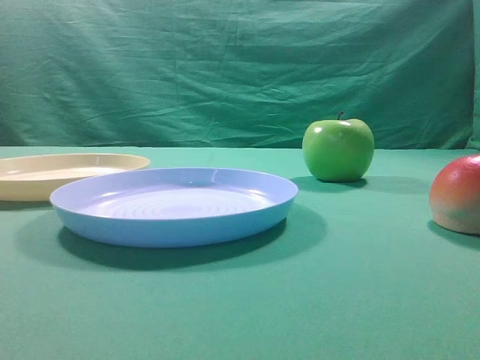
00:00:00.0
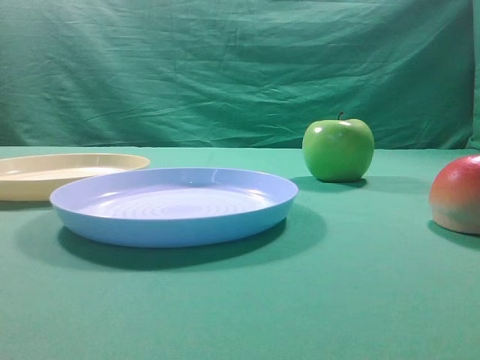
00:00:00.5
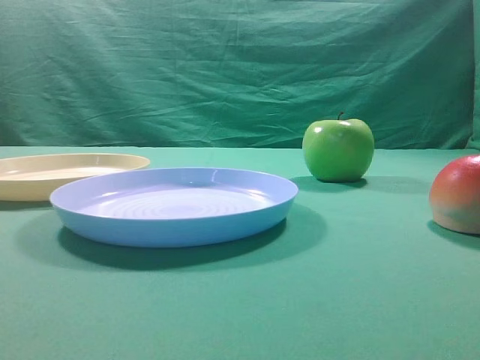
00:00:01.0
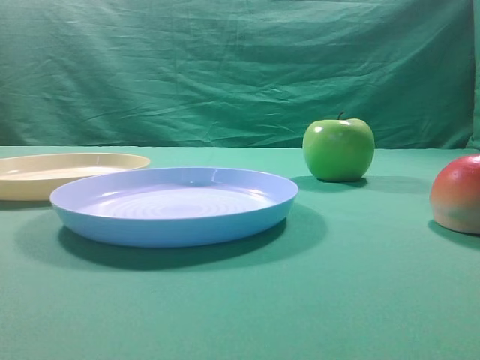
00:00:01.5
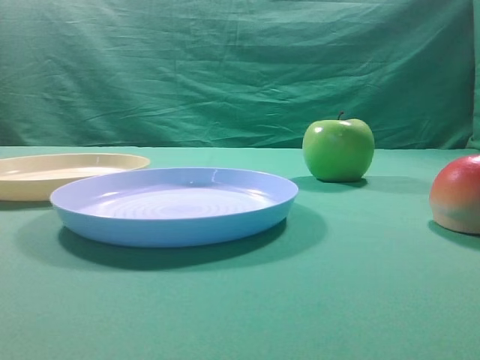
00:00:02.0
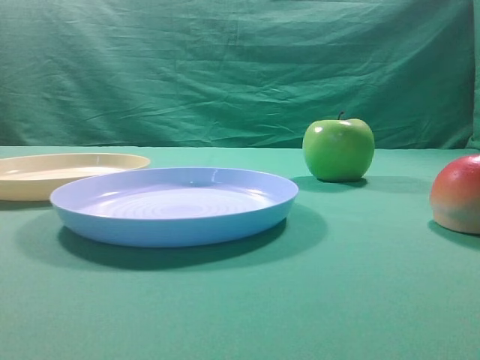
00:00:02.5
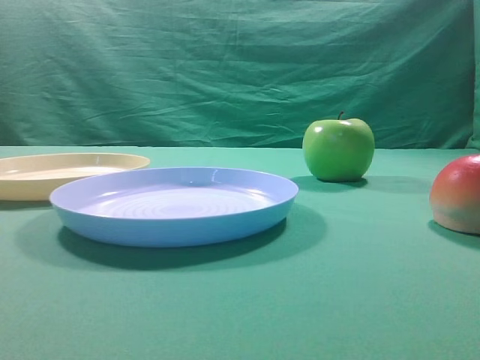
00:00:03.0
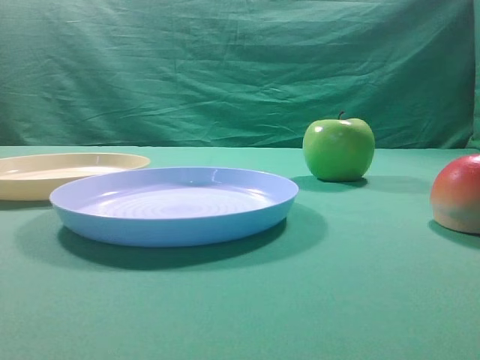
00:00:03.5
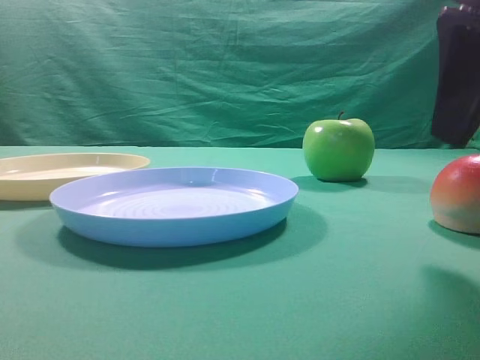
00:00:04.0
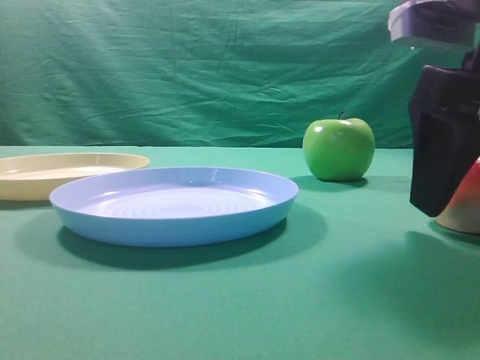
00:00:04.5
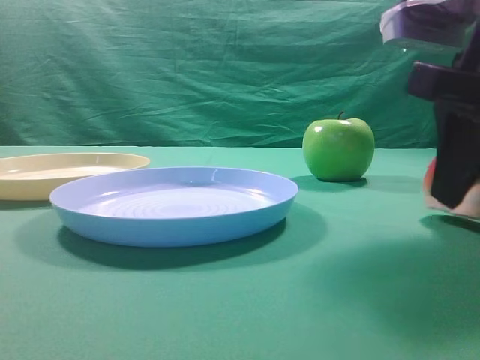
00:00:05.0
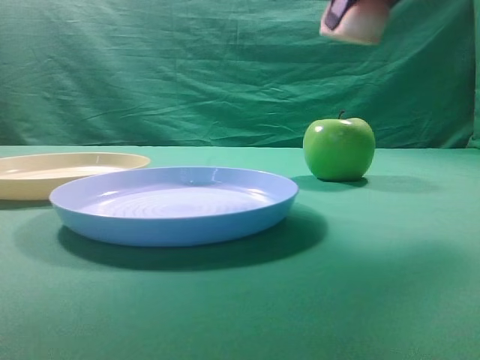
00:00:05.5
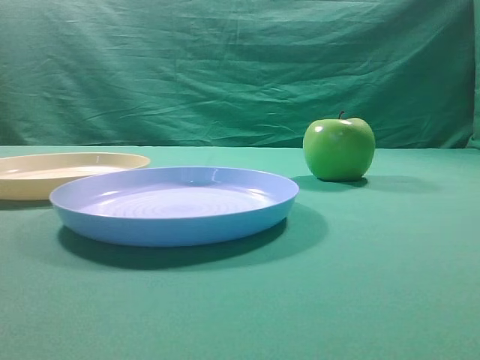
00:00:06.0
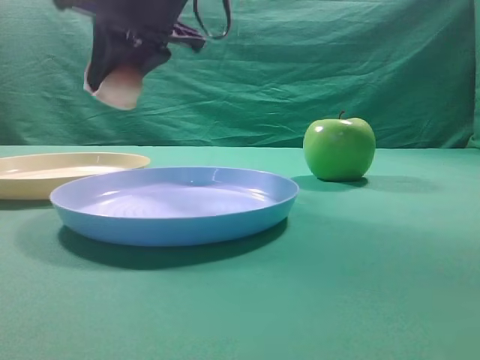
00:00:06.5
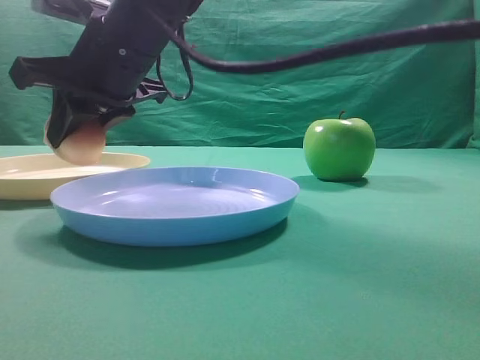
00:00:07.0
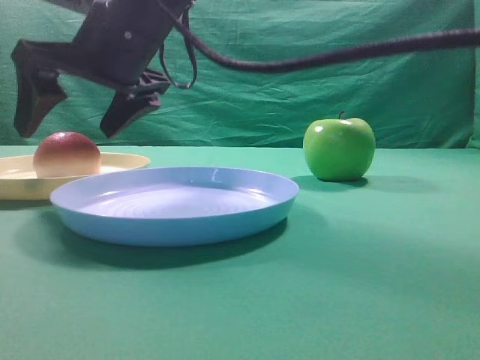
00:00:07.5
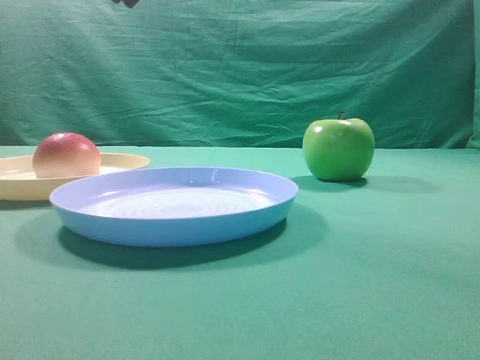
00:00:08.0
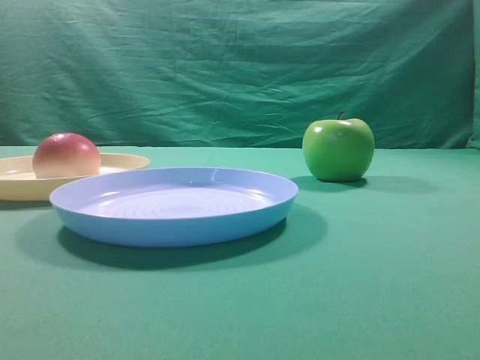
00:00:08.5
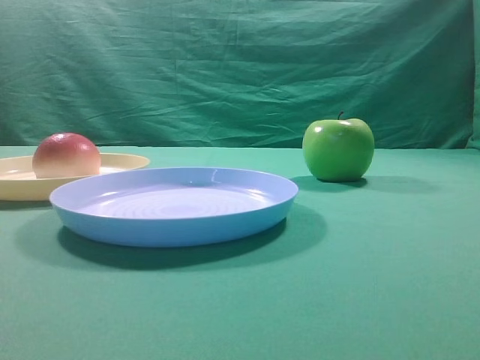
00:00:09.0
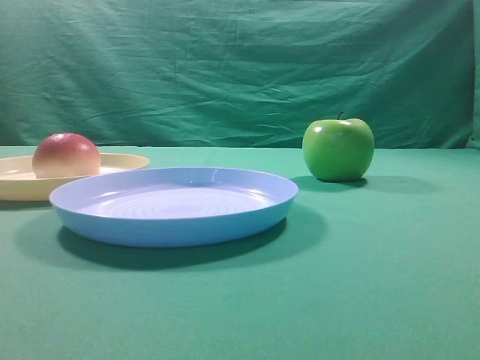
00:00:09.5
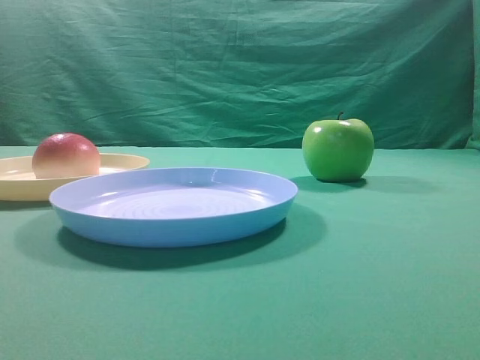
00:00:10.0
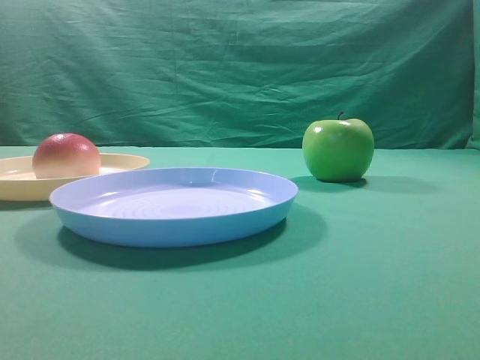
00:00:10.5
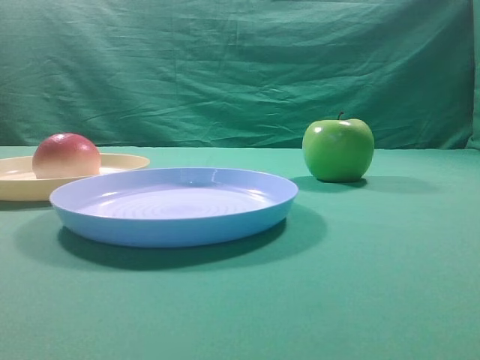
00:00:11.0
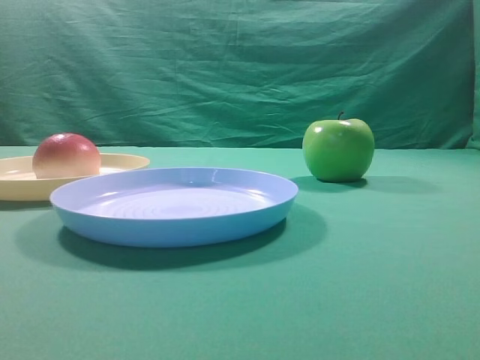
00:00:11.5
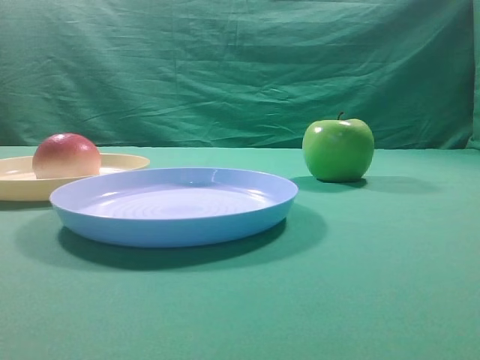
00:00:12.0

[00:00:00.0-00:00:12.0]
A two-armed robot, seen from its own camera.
Step, 00:00:05.5 to 00:00:07.5: Place the picked object on the yellow plate.

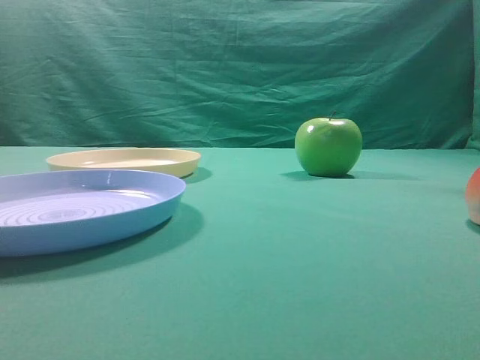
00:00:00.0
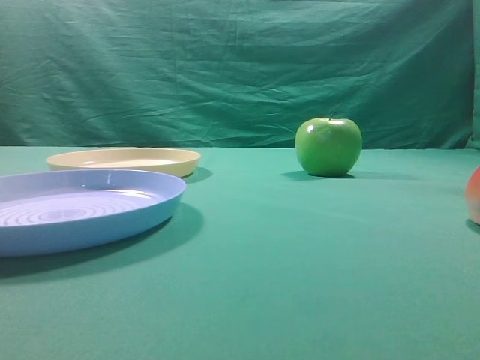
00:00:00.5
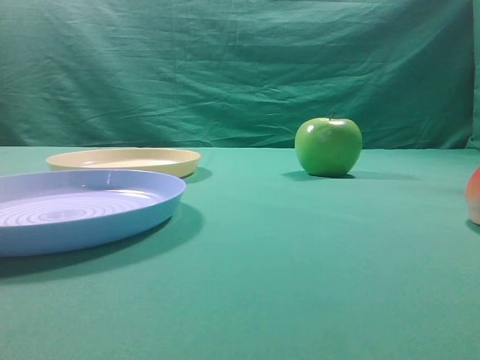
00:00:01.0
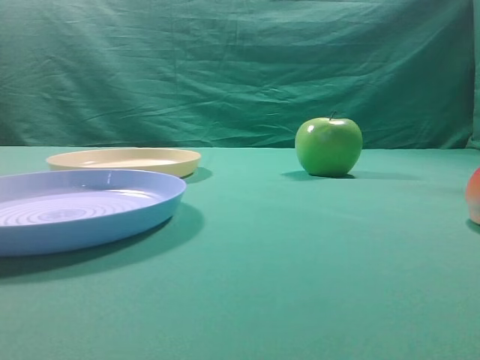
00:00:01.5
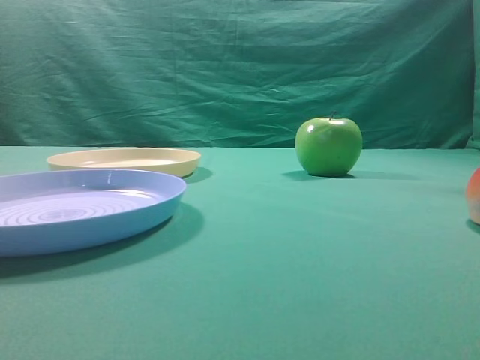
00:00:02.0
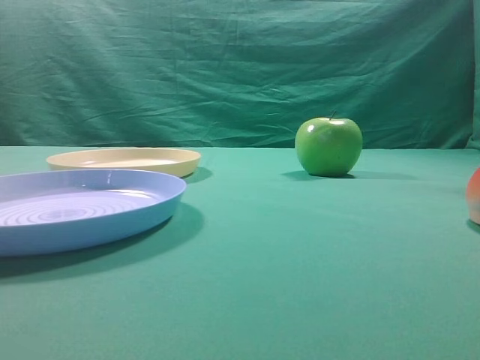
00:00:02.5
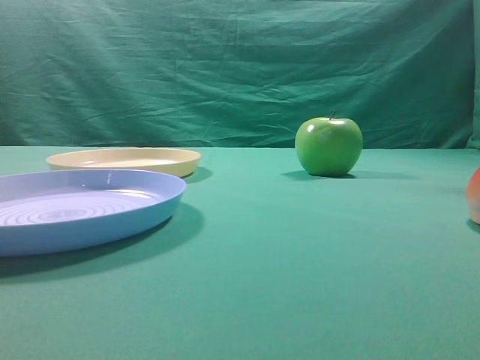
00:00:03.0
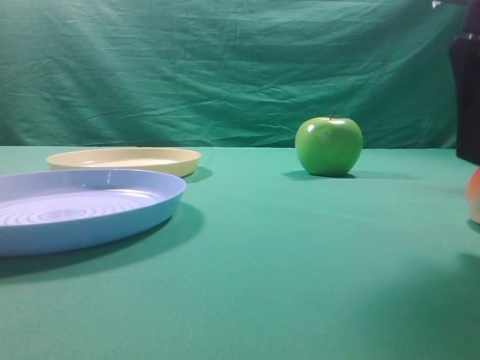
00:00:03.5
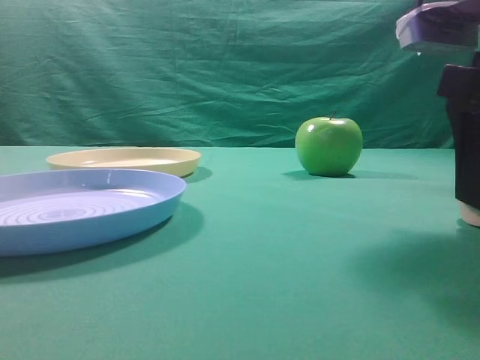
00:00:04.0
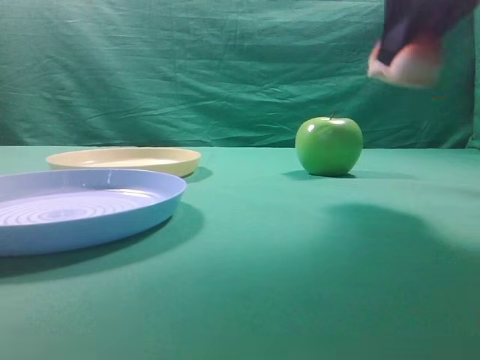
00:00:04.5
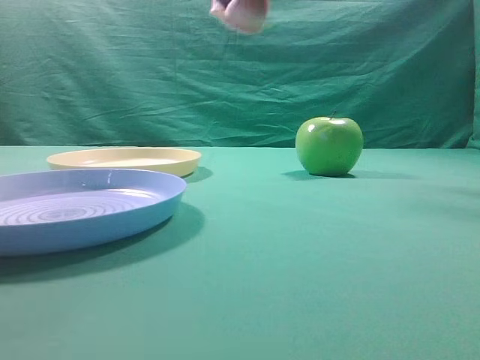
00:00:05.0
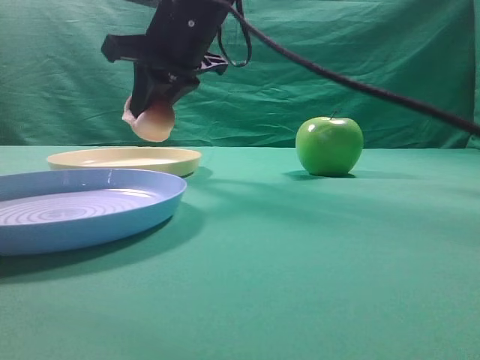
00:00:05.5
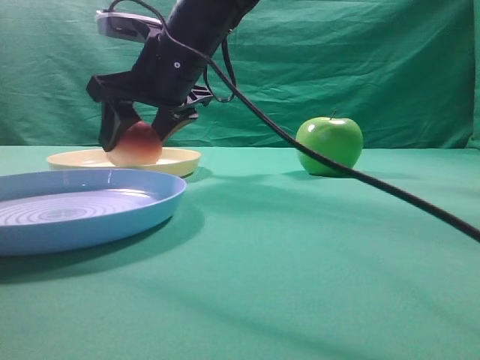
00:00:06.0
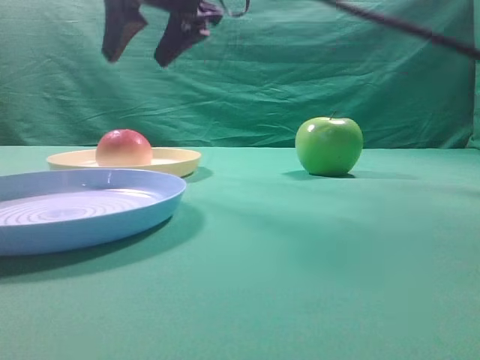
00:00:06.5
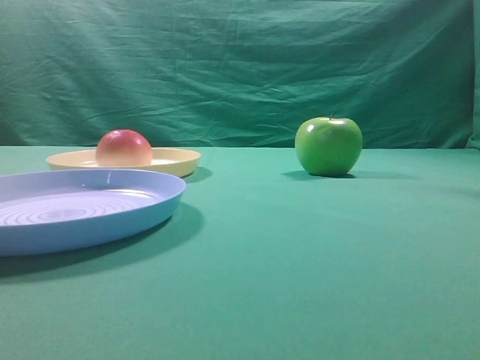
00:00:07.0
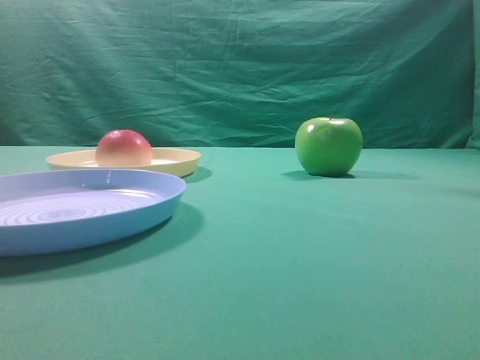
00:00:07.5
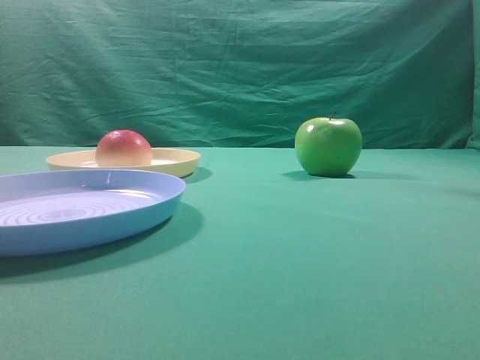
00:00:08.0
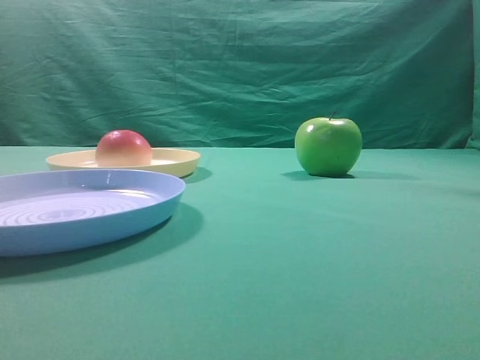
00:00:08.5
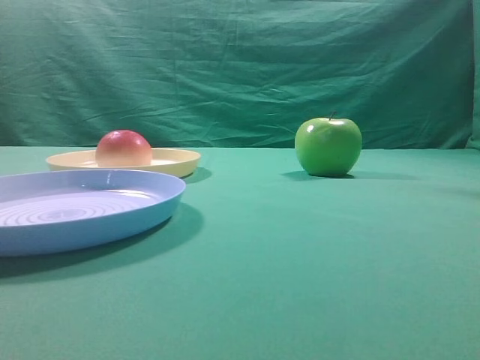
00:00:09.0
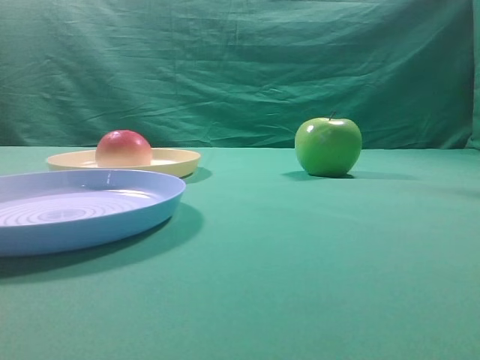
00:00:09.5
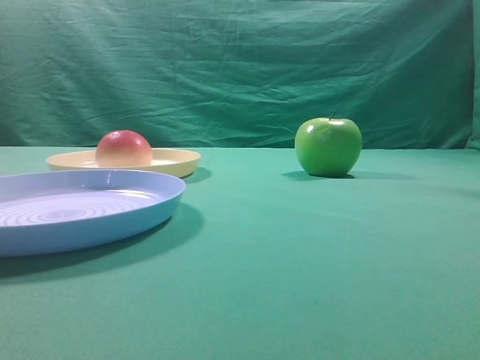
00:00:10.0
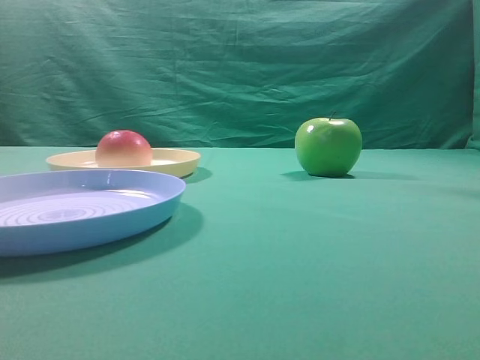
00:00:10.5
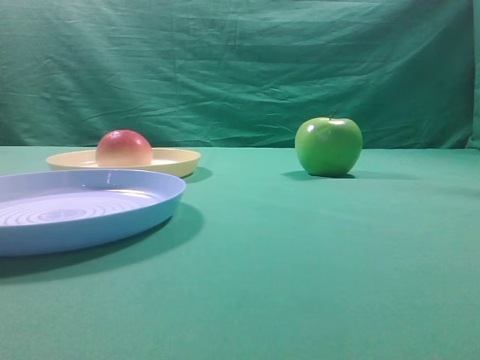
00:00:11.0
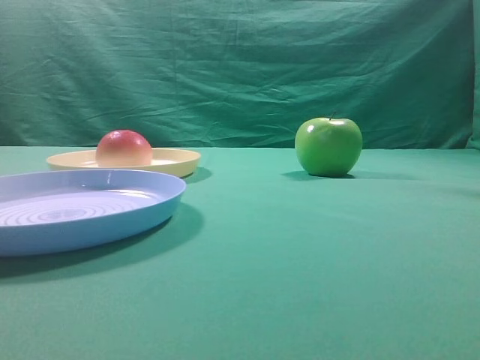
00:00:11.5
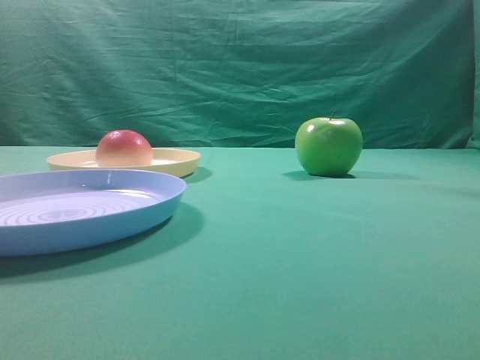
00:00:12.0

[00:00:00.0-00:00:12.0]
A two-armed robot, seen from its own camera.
Step, 00:00:04.5 to 00:00:06.0: Place the picked object on the yellow plate.
